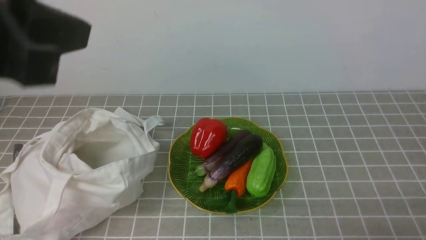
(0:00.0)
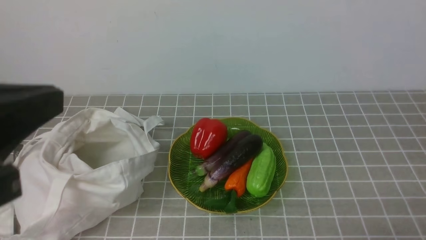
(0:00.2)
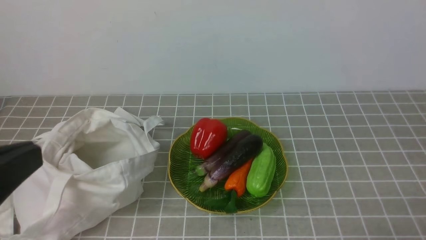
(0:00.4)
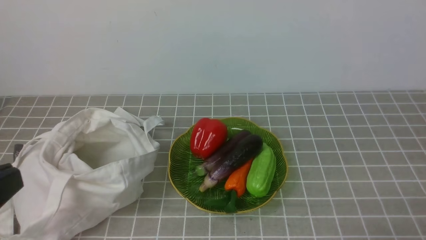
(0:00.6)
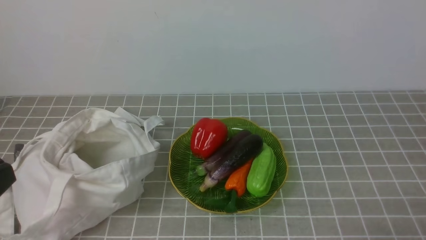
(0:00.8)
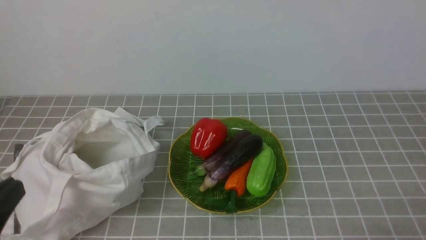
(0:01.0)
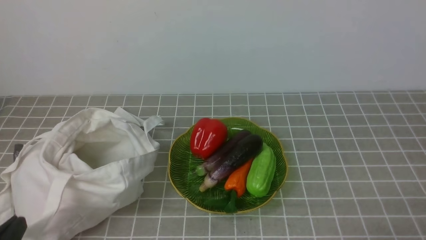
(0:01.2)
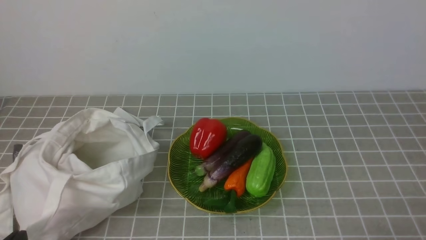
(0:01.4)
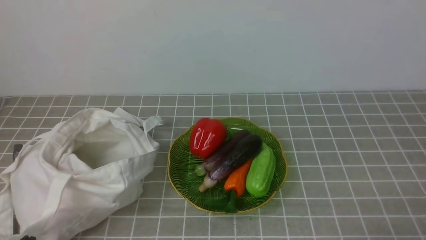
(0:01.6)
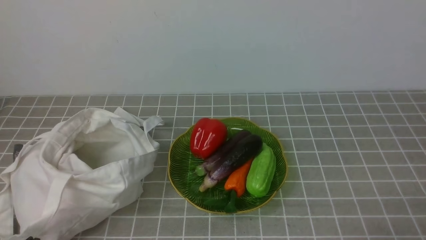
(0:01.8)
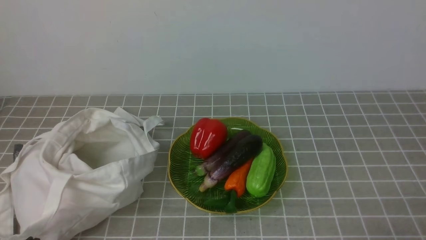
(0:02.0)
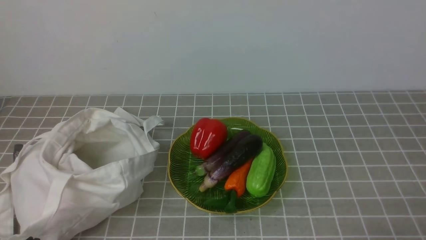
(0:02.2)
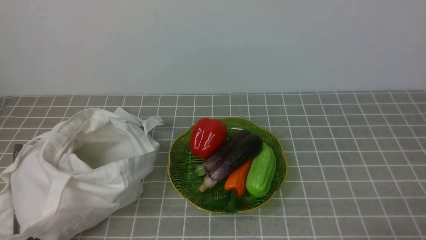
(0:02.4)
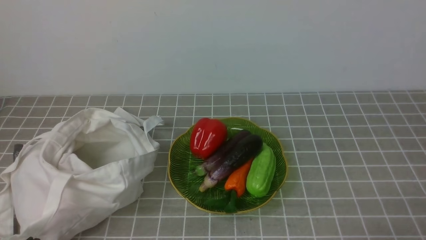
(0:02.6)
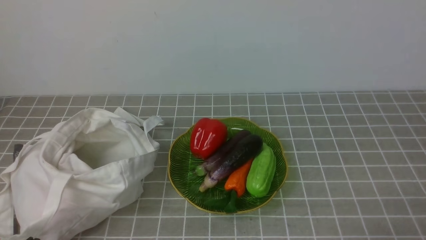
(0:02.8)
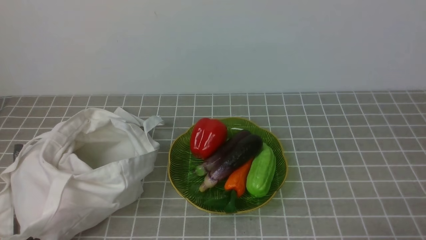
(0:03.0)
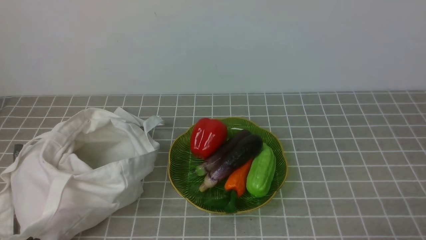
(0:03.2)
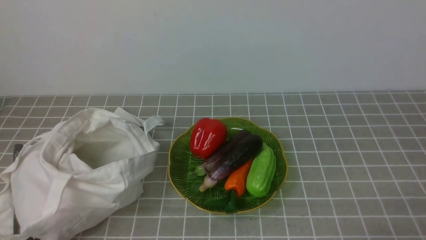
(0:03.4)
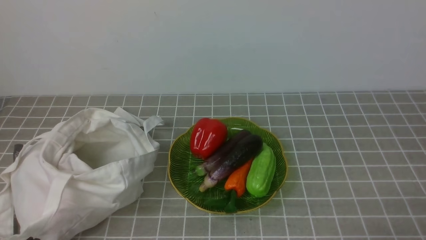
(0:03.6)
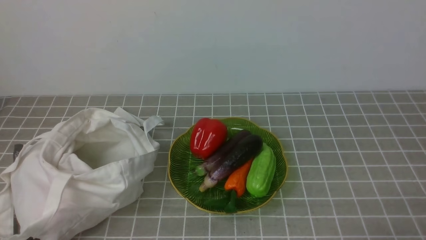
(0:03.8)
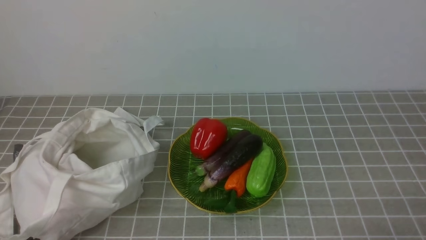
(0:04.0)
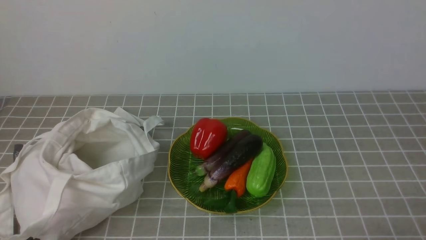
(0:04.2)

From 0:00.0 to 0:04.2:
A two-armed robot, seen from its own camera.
Task of the whole recording: take vegetables from bag on grey coffee tablecloth place on plate.
From 0:00.0 to 0:01.4: The left gripper goes roughly 30 cm downward and backward.
From 0:02.8 to 0:04.2: Both grippers stay put.
